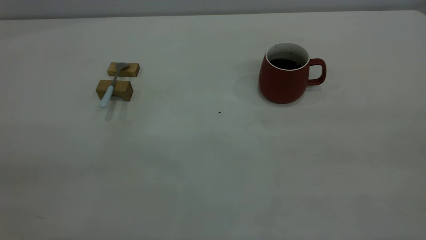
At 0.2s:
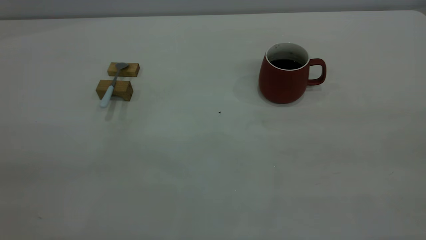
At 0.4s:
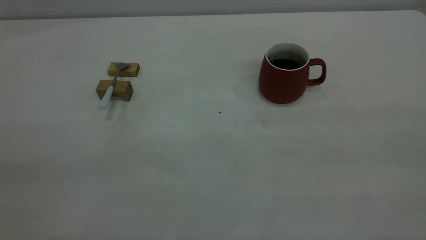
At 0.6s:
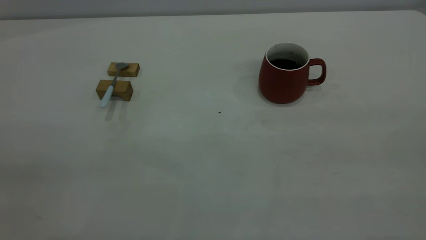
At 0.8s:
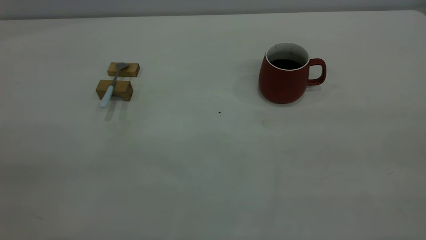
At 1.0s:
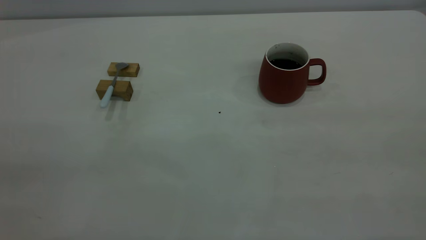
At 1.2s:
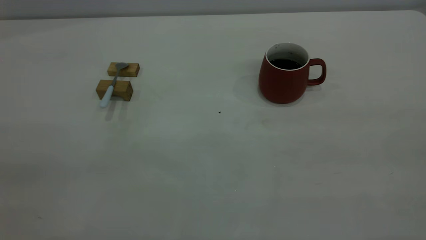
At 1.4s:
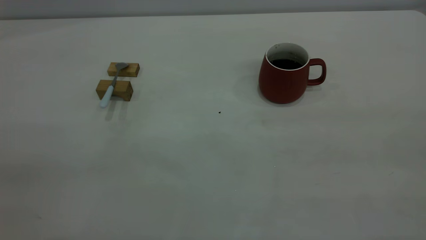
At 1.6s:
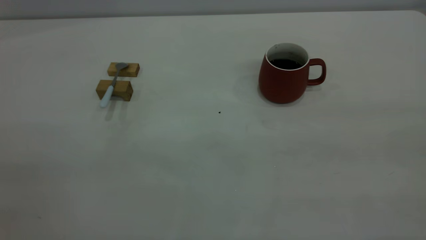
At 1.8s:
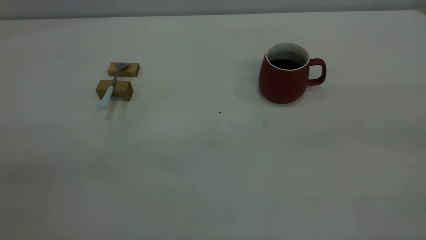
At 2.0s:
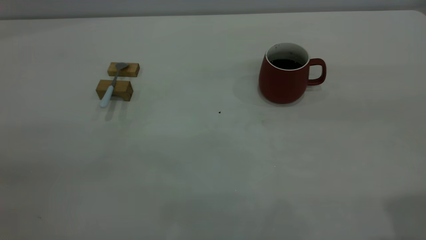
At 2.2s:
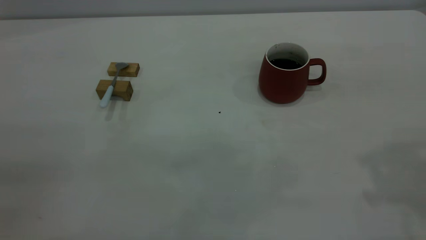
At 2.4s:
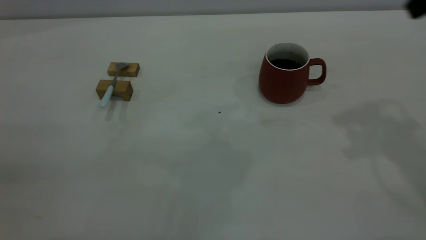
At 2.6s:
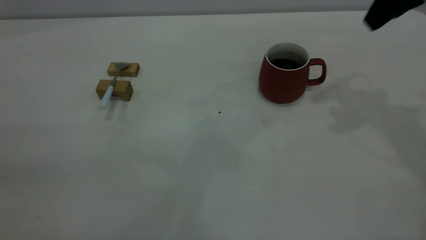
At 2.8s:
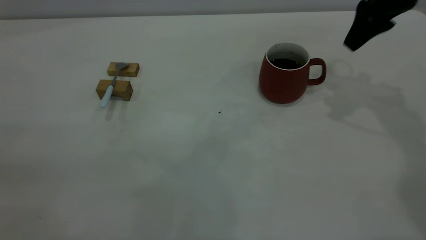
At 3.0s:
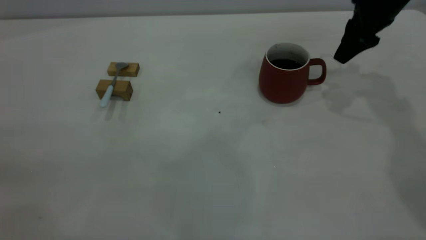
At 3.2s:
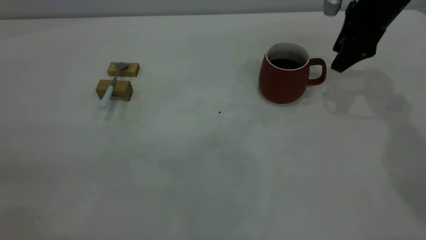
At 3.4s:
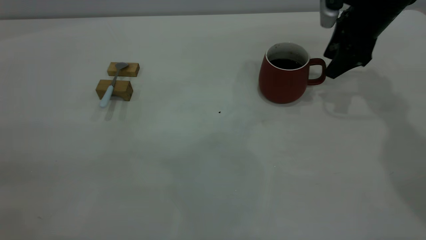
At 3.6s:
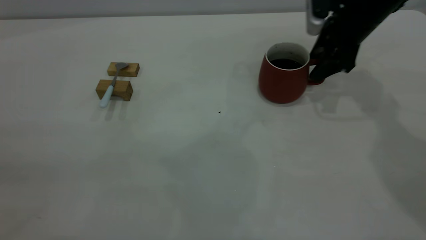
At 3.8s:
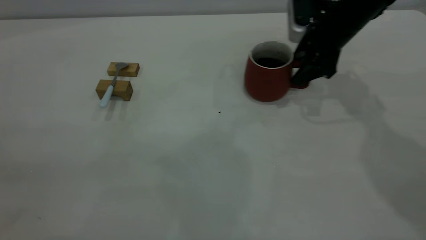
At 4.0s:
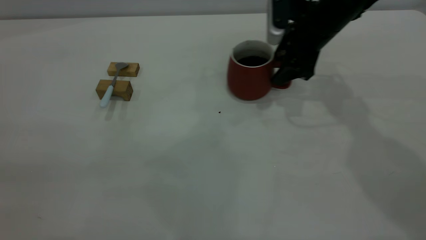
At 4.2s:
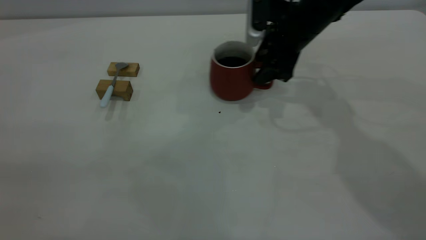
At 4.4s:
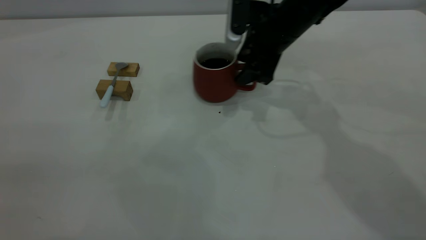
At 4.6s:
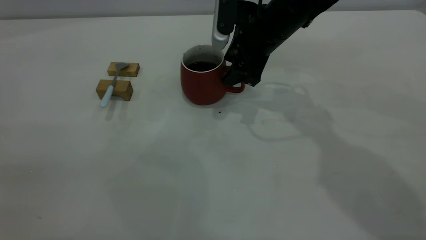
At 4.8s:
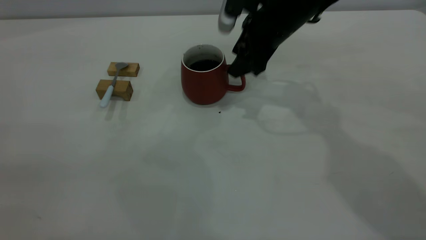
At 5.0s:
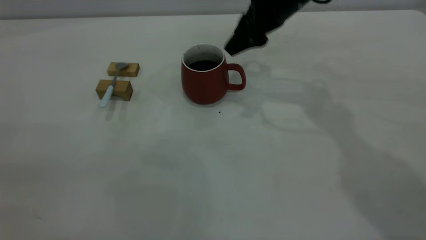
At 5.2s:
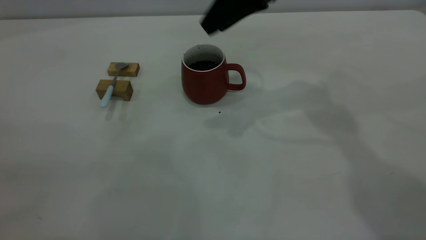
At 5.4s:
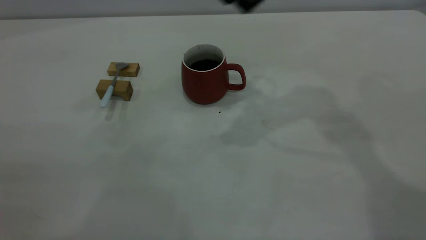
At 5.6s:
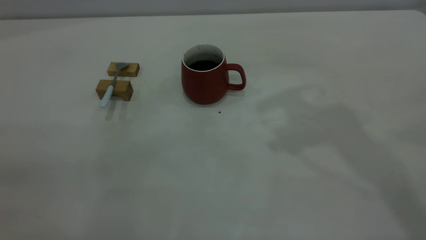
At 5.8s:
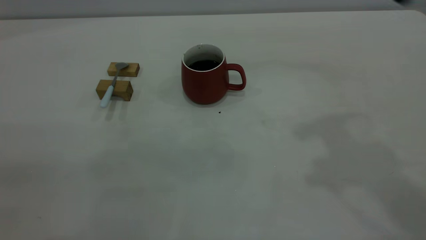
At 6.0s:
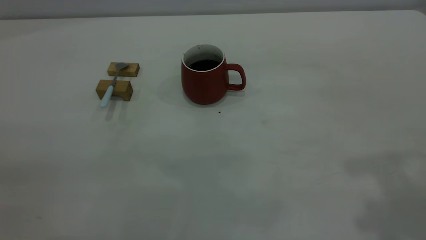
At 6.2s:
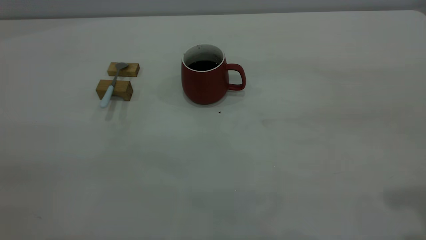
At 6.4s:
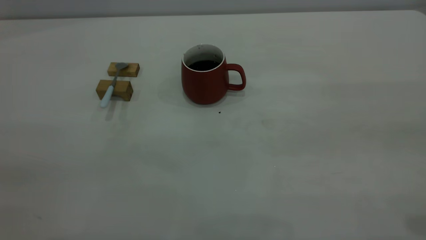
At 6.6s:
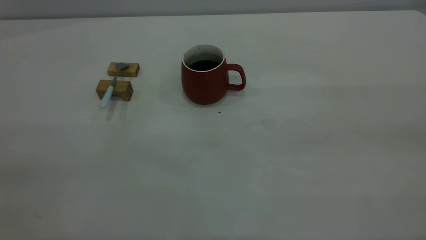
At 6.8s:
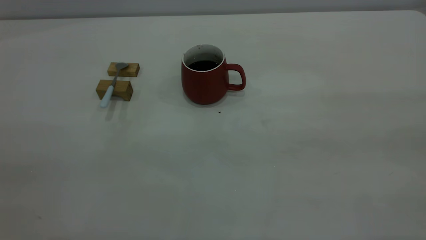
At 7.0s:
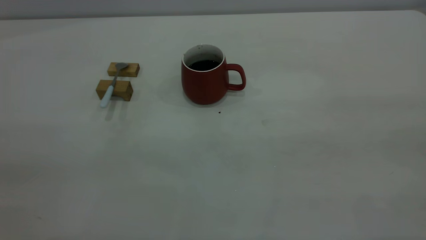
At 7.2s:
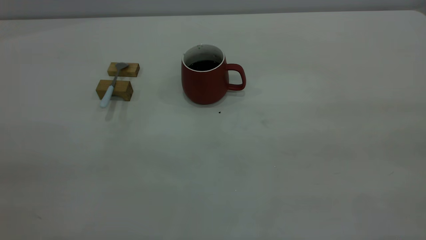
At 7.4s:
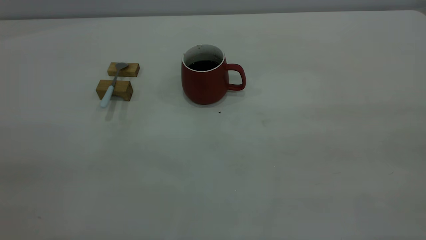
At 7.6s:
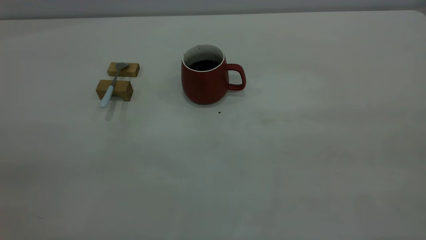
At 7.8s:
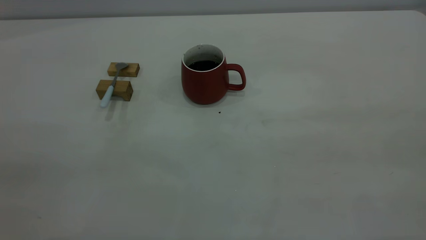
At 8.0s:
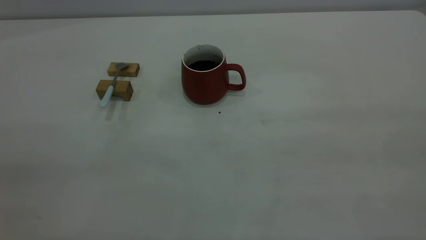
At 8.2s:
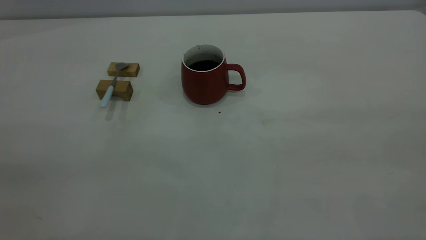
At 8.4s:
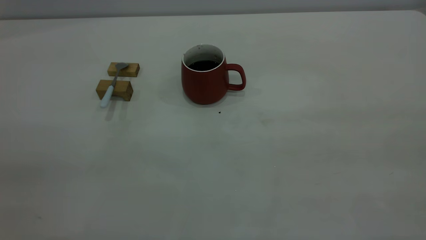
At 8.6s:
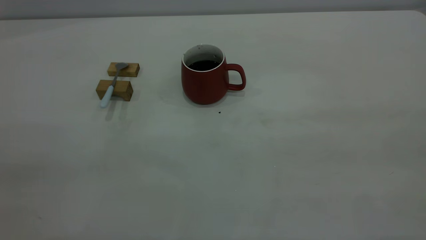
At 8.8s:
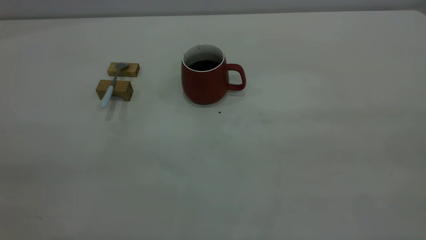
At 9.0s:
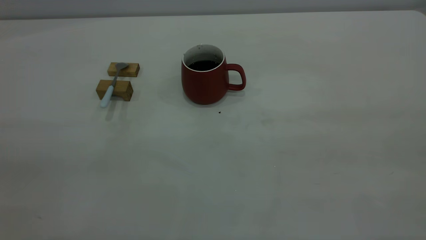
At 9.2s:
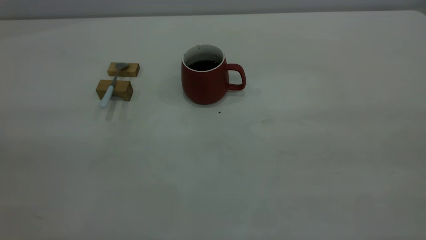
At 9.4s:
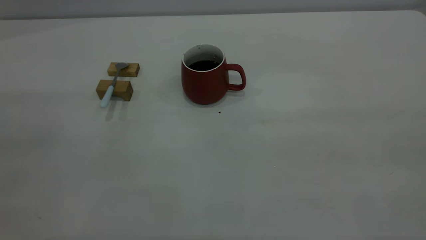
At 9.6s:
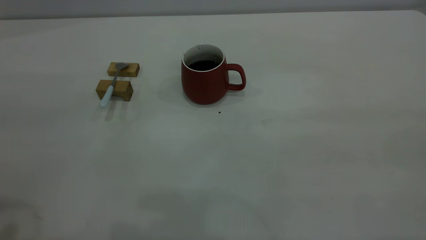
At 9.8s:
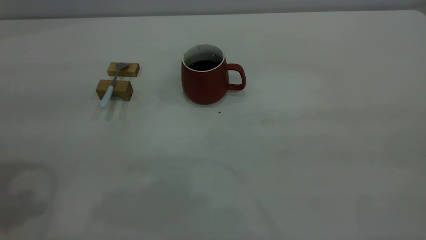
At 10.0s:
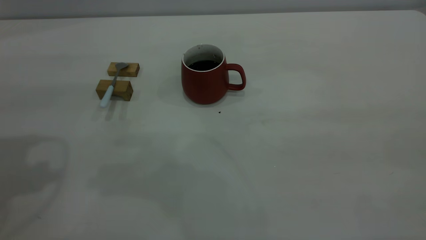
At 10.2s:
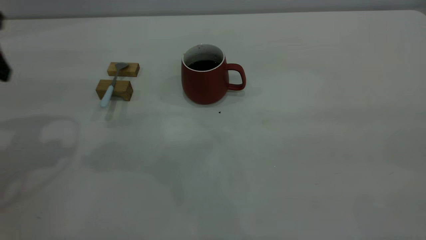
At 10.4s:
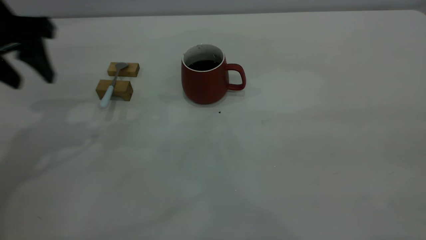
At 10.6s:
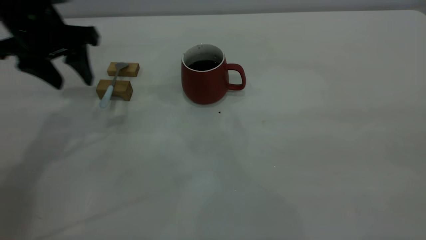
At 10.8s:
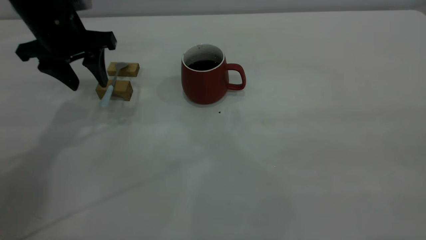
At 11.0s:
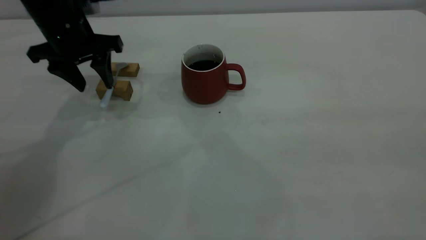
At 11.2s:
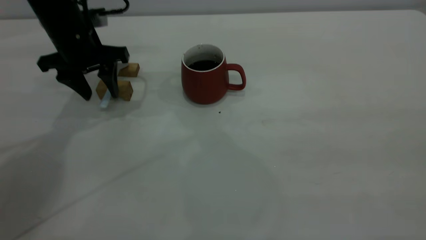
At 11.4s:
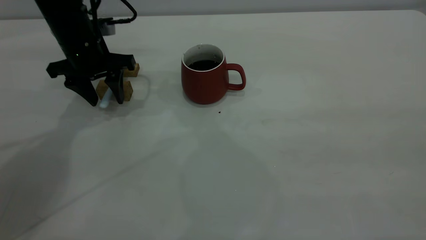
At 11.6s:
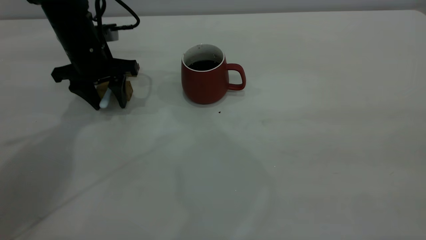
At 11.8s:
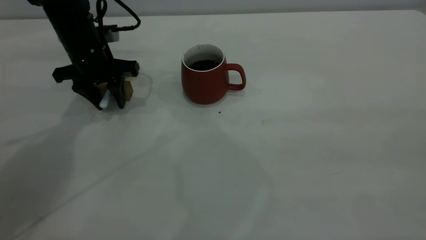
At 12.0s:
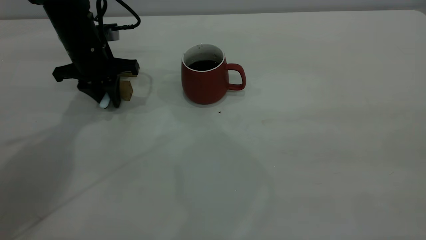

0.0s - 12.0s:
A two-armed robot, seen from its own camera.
Step, 0.0s - 5.0s: Move the cup with coffee to the center of view.
1.6s - 3.0s: The right gripper moves forward and downward, some 50 cm.
3.0s - 4.4s: The right gripper moves to the left, about 15 cm.
4.4s - 6.0s: The right gripper is displaced backward, upward and to the right by about 35 cm.
7.6s - 9.0s: Both grippers stay put.
9.0s - 10.4s: The left gripper goes about 40 cm forward and downward, and opens its fingers.
10.4s - 12.0s: The left gripper goes roughly 15 cm downward and forward, and closes its fingers.

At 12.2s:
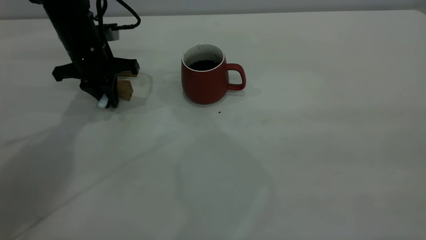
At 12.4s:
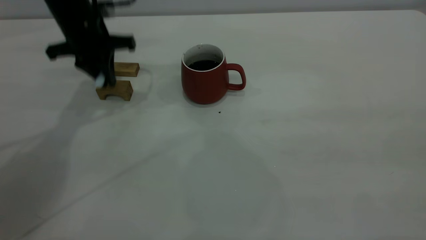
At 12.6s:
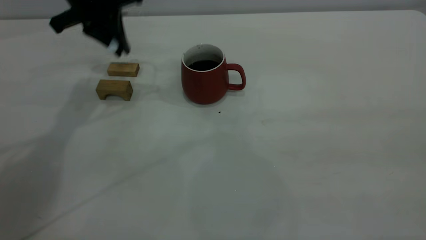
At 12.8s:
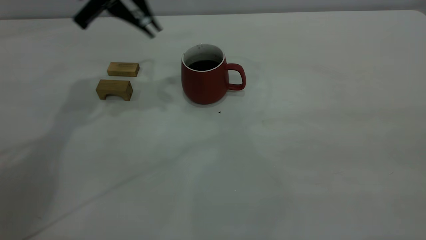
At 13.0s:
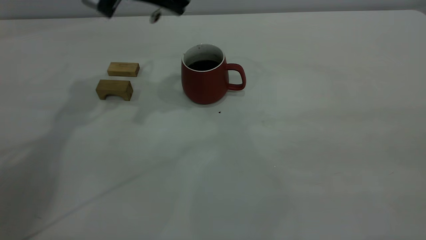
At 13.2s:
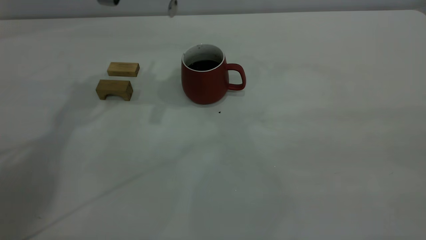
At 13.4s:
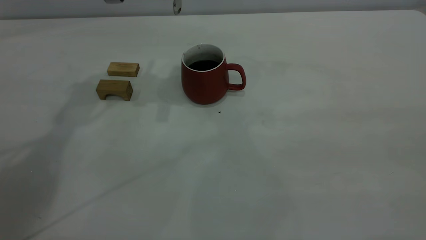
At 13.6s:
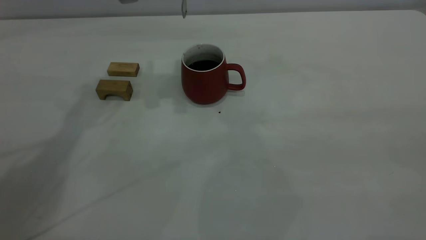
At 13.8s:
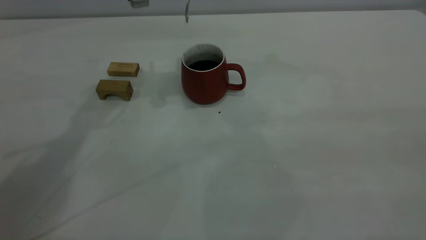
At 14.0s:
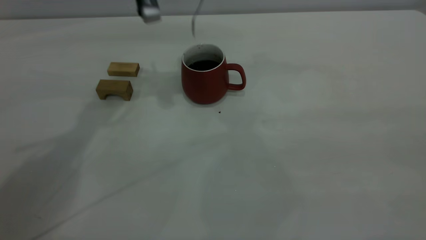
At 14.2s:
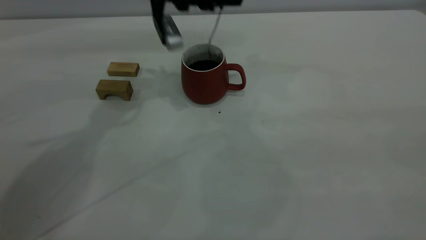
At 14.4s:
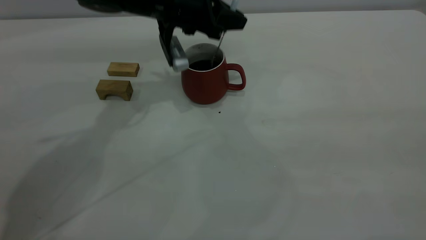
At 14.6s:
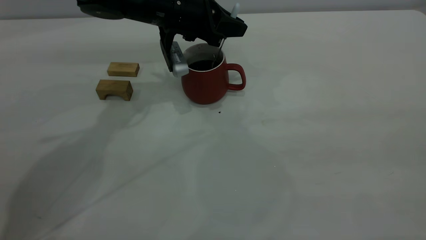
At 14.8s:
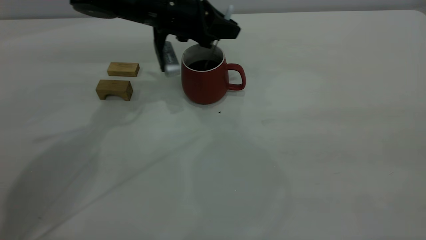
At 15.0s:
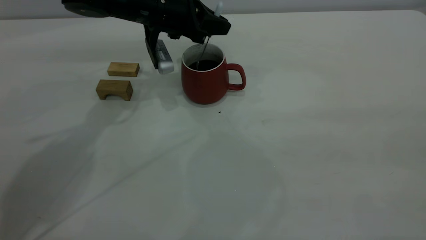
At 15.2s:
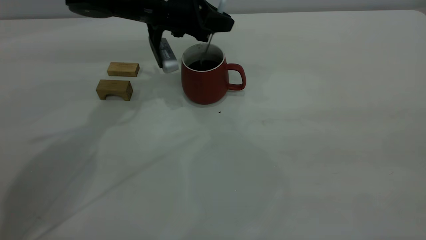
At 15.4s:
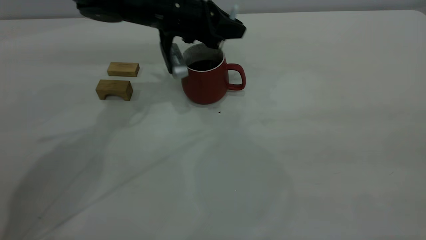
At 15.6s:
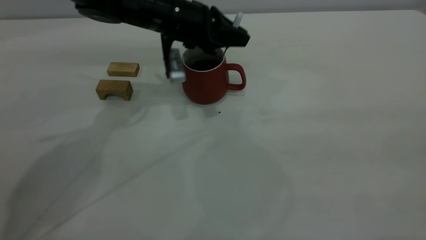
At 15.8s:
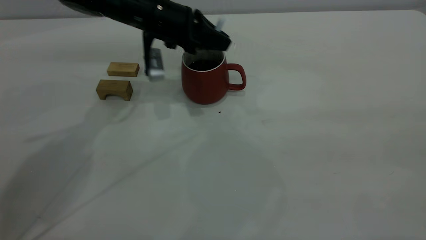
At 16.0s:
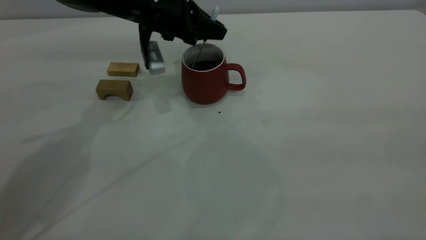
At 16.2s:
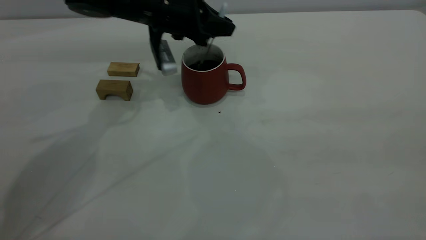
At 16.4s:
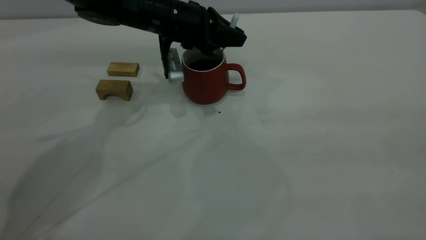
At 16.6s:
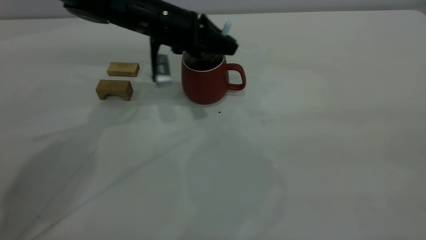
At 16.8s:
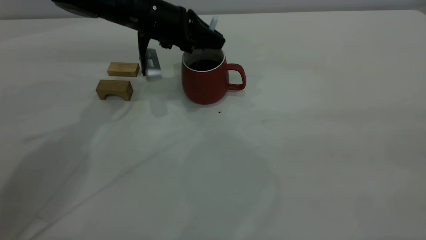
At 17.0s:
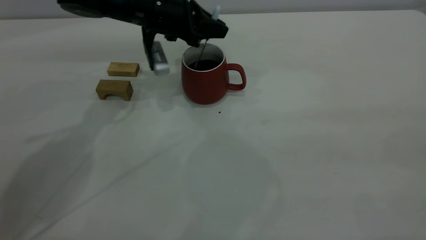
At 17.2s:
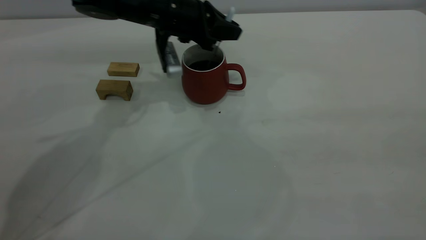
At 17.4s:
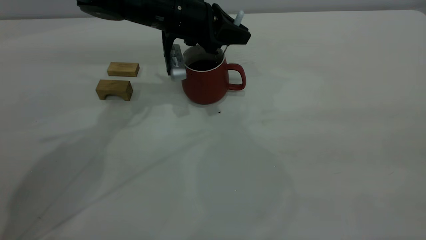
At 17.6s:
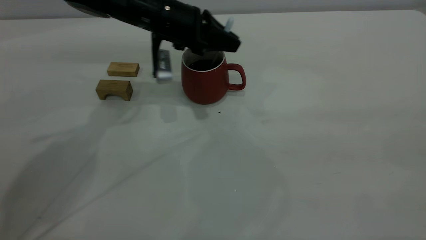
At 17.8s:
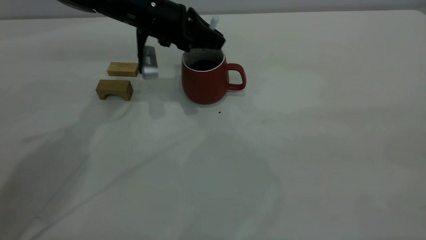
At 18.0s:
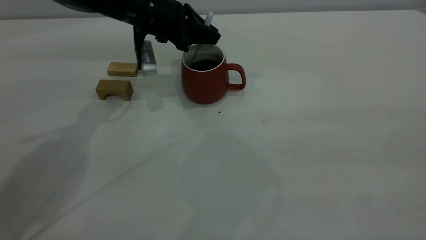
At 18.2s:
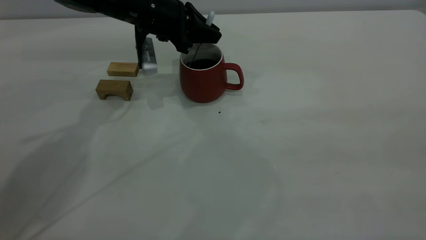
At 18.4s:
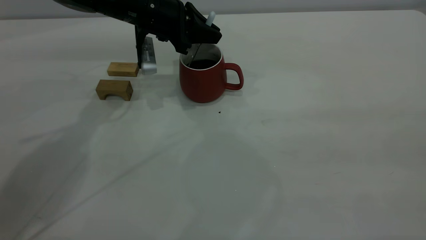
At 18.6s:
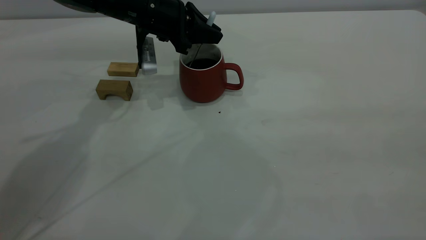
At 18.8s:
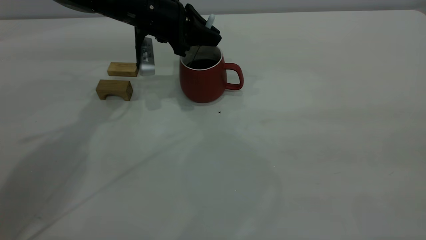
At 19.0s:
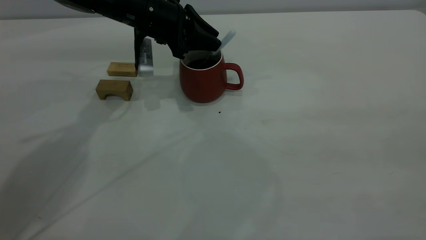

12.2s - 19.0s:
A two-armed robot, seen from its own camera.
12.2s - 13.6s: The left gripper heads upward and to the right, covering about 20 cm.
13.6s - 15.0s: The left gripper goes roughly 15 cm downward.
15.0s - 17.6s: The grippers move only a little.
17.6s - 19.0s: The left gripper opens its fingers.
